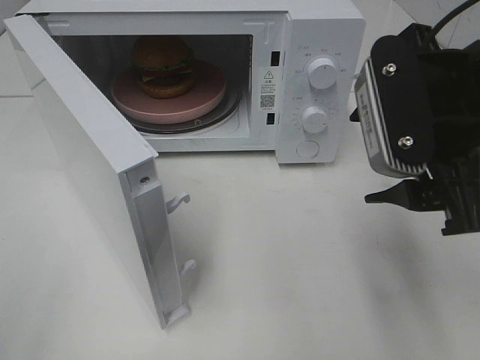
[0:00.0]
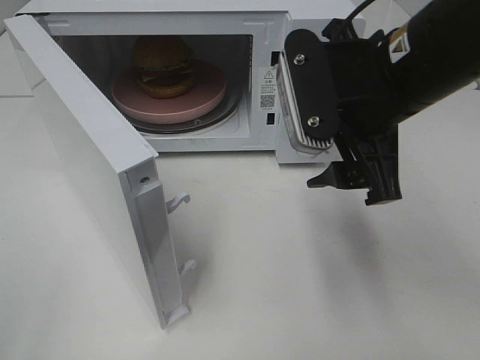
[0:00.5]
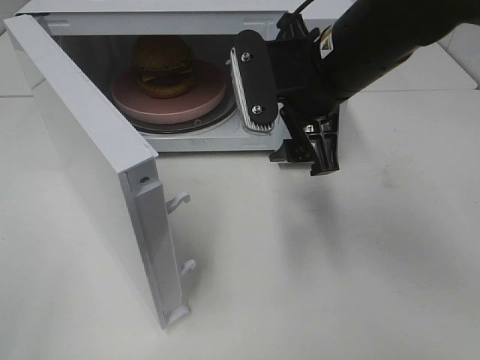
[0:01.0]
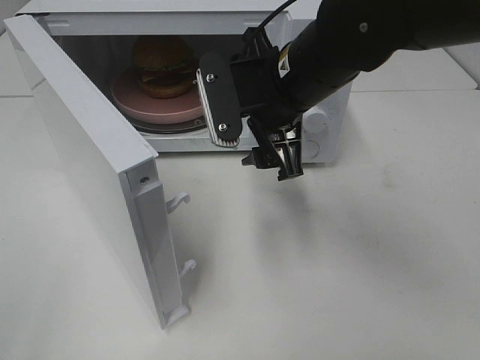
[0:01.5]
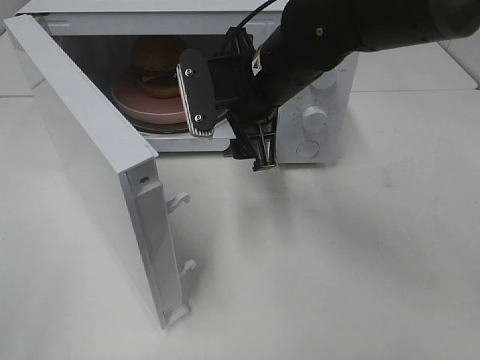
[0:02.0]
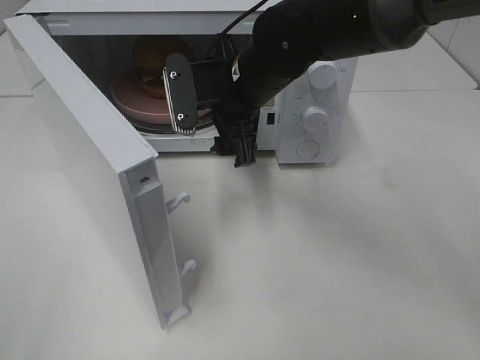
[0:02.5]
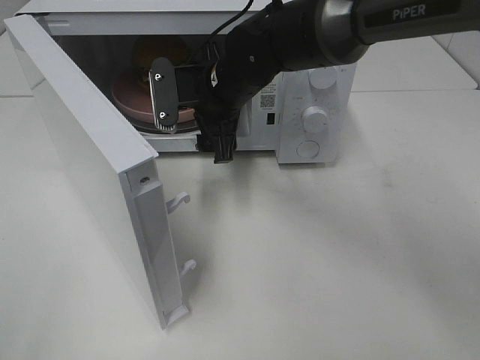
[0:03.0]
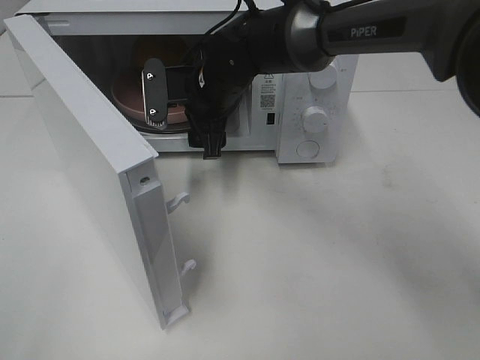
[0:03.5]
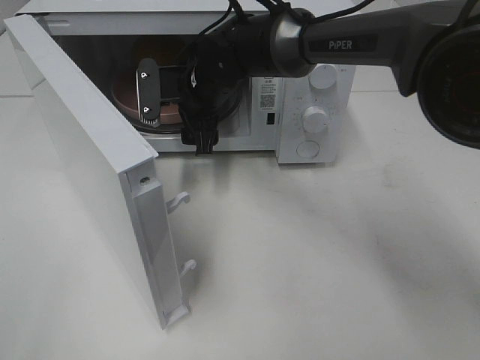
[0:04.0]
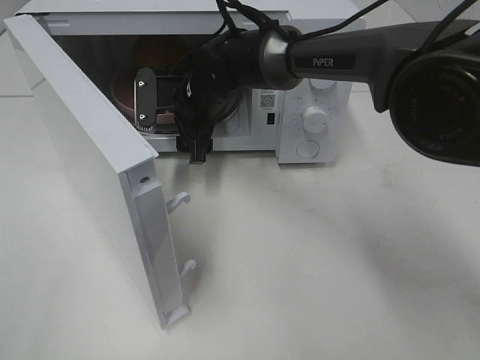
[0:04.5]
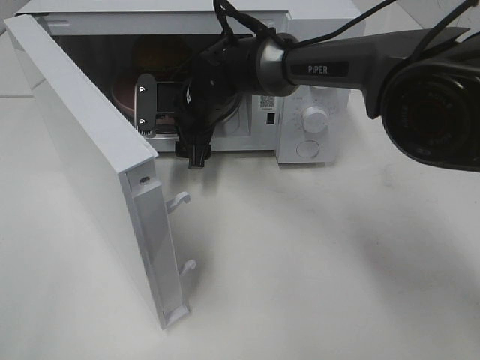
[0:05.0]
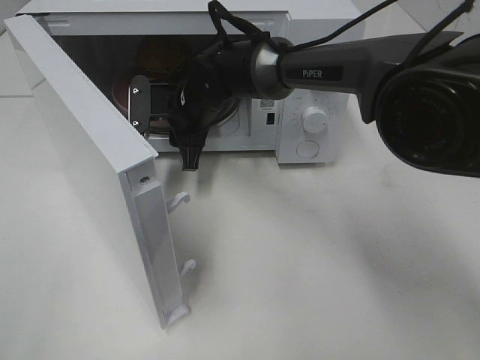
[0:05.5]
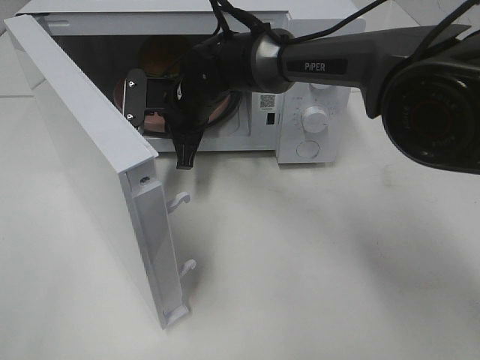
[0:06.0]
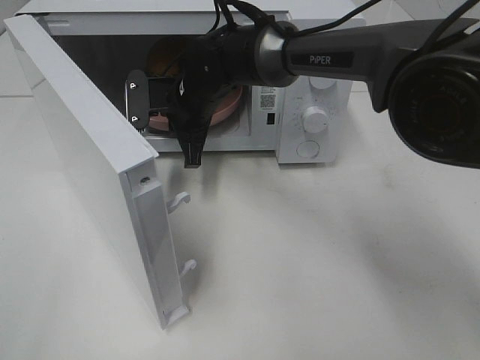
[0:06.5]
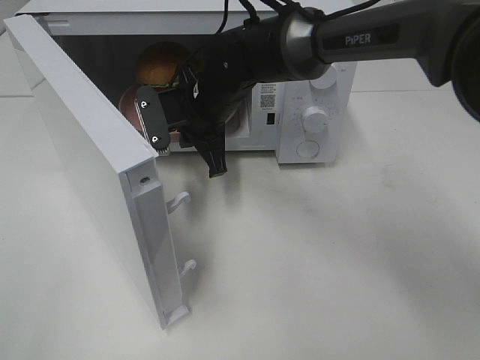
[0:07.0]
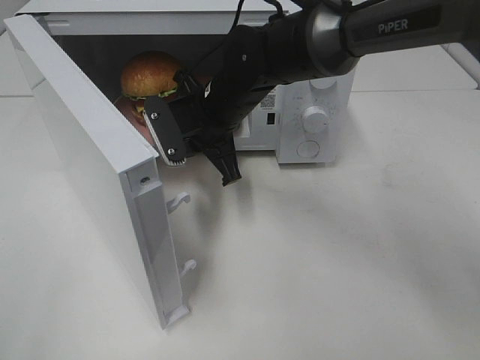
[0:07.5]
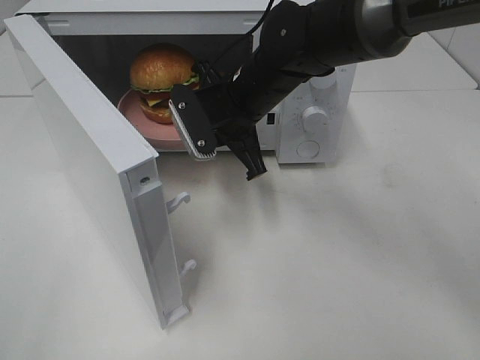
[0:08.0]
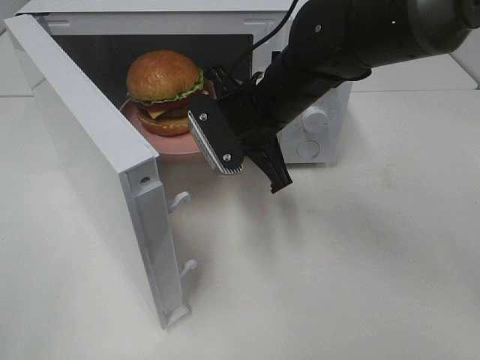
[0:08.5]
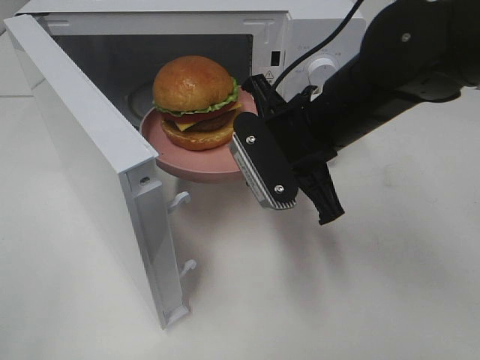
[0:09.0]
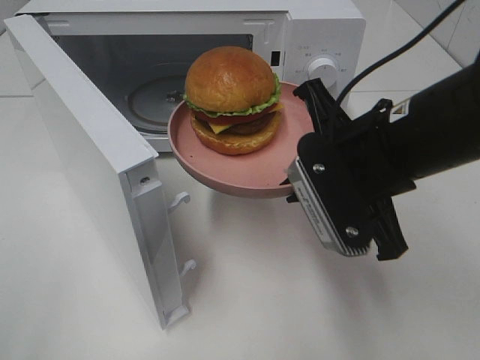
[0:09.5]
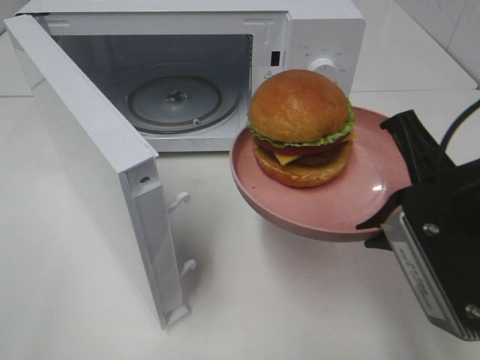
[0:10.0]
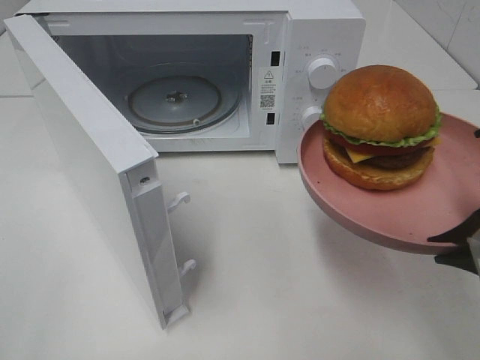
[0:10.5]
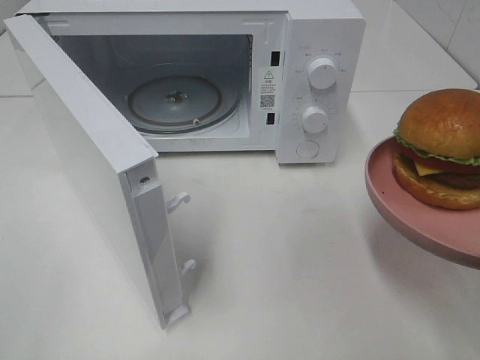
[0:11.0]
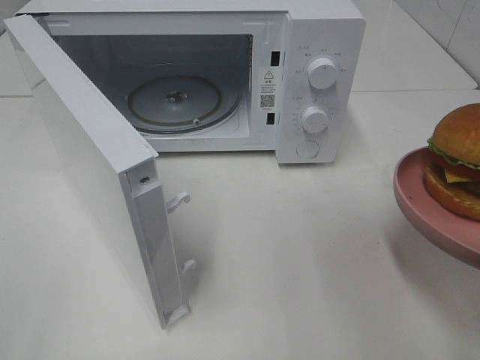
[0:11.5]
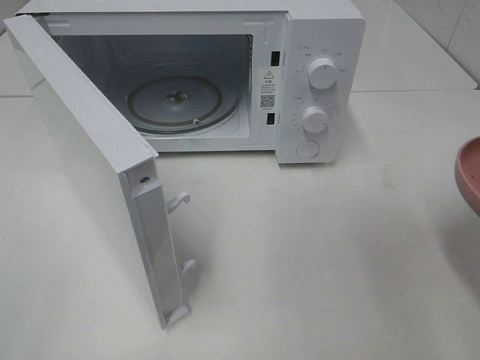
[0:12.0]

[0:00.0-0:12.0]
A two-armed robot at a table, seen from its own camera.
Task of the whole recording: Heat the burger.
Step, 0:00.0 to 0:06.0: Right hand: grab the plate with the hamburger.
0:00.0 to 0:02.0: The right gripper travels forward, to the left and downward by approximately 20 cm.
0:02.0 to 0:04.0: The right gripper is displaced forward, to the left and downward by roughly 15 cm.
0:04.0 to 0:06.0: The right gripper closes its fingers.
0:06.0 to 0:08.0: The right gripper heads to the right and backward, covering some 10 cm.
0:08.0 to 0:10.0: The right gripper is displaced backward and to the right by some 25 cm.
0:10.0 to 0:12.0: The right gripper moves to the right and backward, some 10 cm.

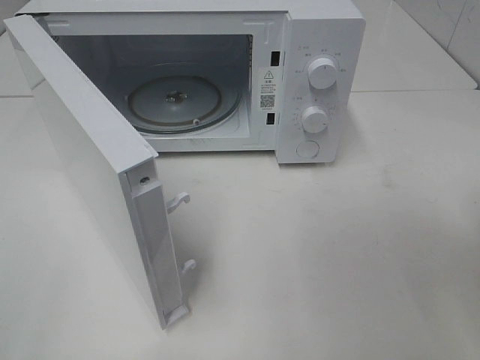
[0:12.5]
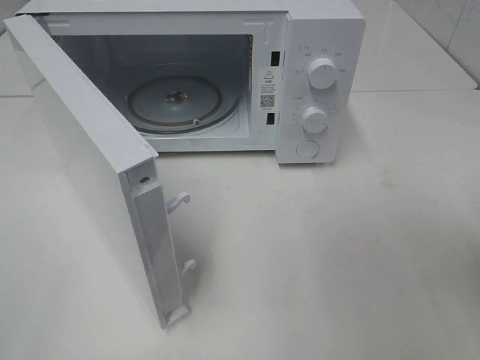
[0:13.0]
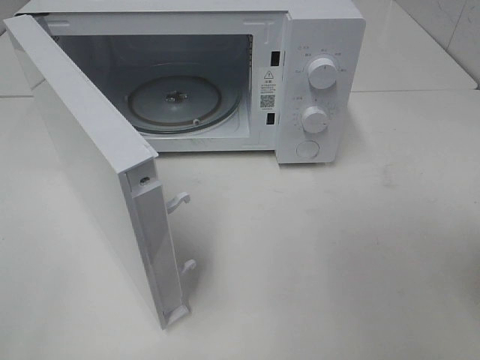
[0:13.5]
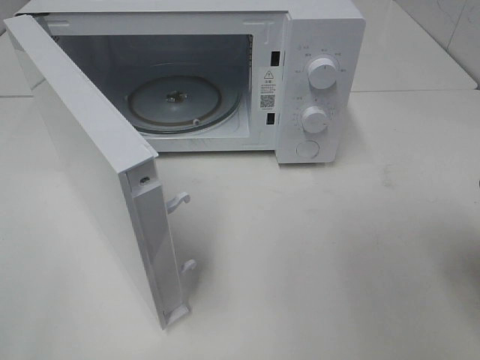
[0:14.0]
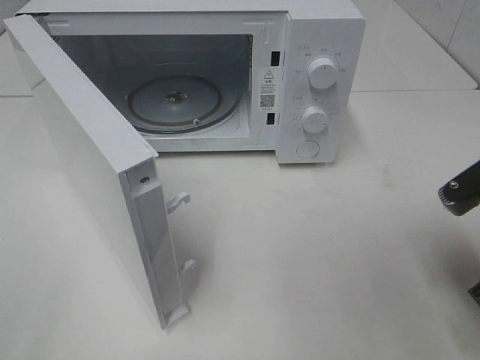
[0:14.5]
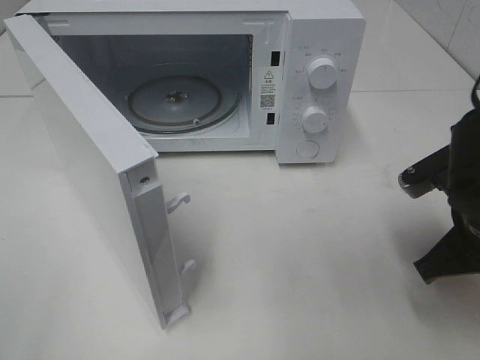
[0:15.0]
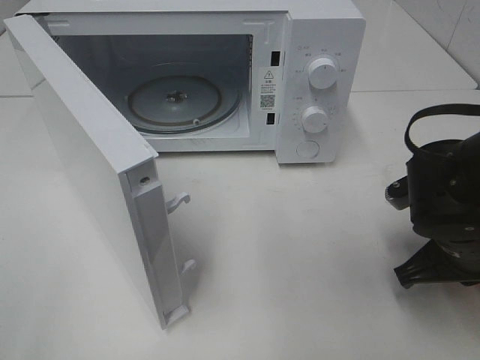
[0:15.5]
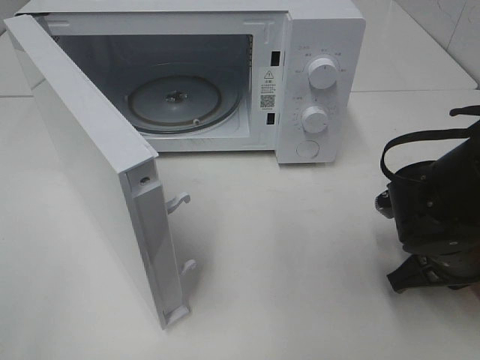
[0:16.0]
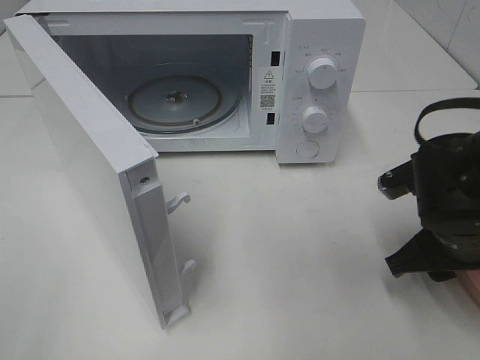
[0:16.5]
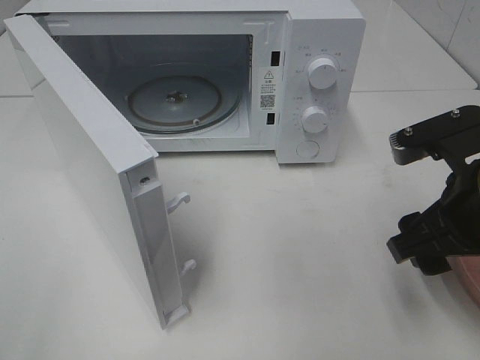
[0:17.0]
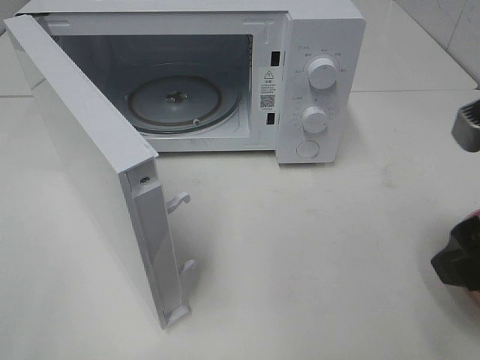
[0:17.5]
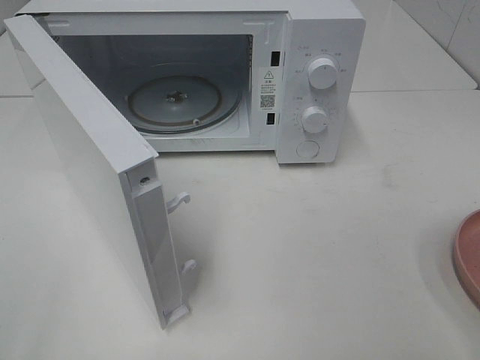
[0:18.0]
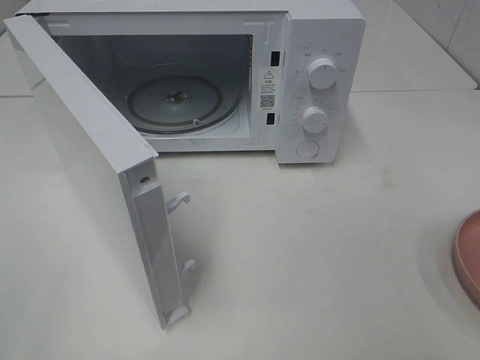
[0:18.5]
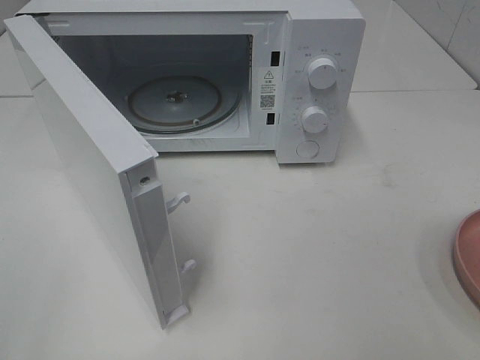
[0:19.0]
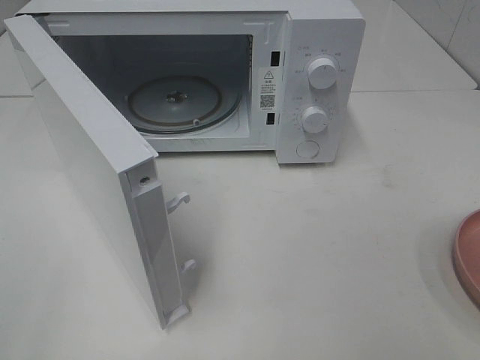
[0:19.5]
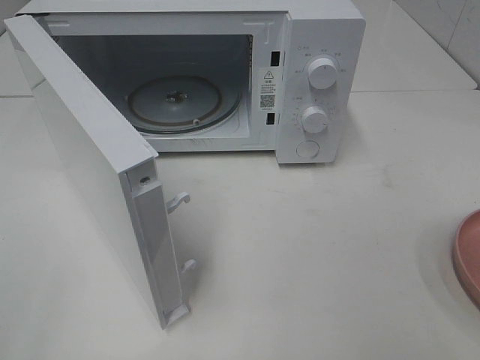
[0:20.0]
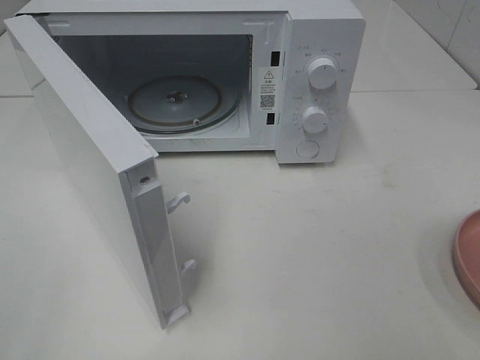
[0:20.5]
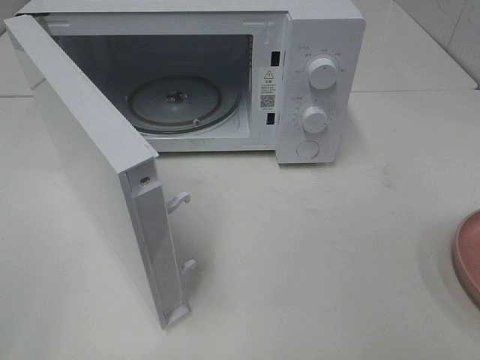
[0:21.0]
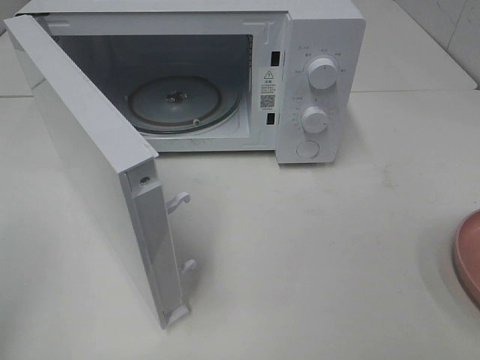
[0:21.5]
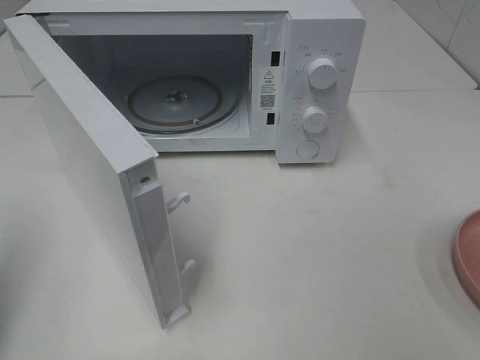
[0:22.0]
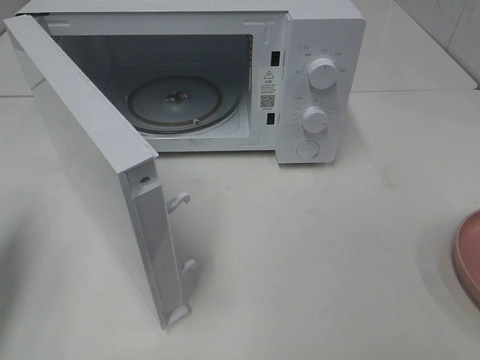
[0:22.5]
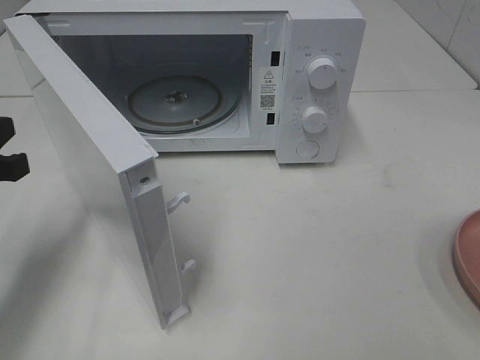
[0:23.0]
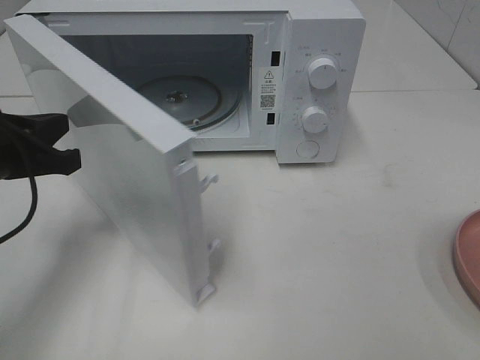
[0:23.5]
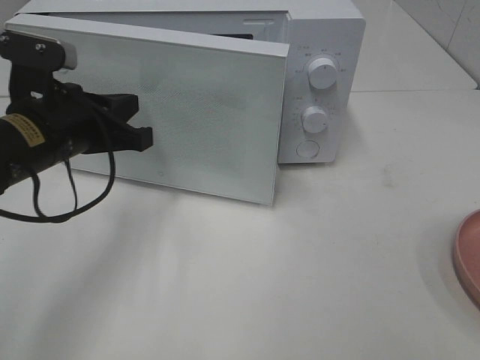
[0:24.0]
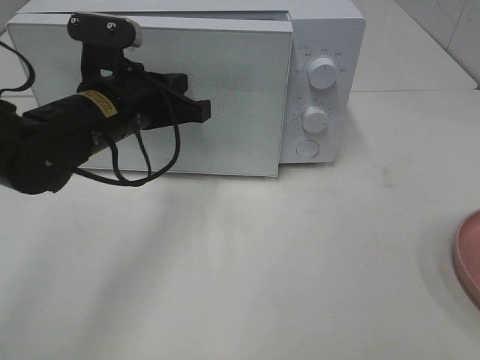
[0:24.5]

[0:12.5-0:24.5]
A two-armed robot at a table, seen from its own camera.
Task of the whole recording: Heat the burger.
Step, 0:12.5 to 0:16.0: Right hand: place the plate on the table.
0:12.5 to 0:14.5: The right gripper is displaced forward and downward by some 10 cm.
0:14.5 to 0:16.5: The right gripper is displaced downward and forward by roughly 10 cm, and opens.
0:16.5 to 0:18.5: The right gripper shifts approximately 25 cm backward and upward.
0:20.5 to 0:22.5: The left gripper shifts some 20 cm forward, and closes.
0:22.5 to 0:24.5: The left gripper shifts roughly 25 cm to the right and forward.

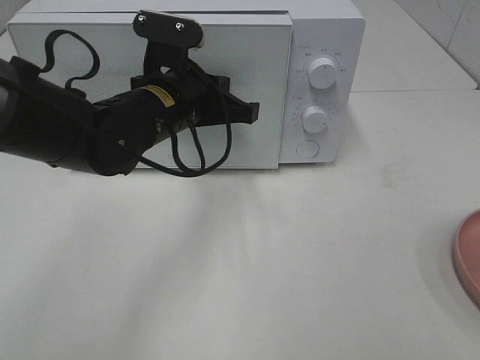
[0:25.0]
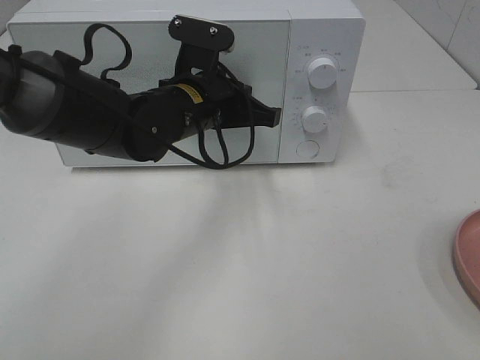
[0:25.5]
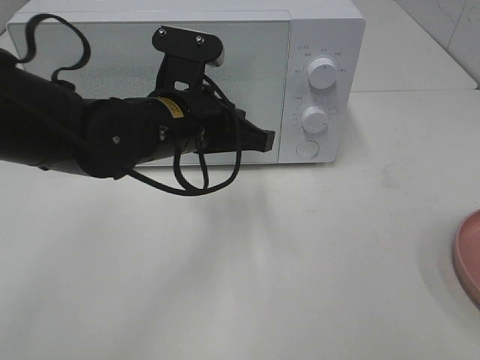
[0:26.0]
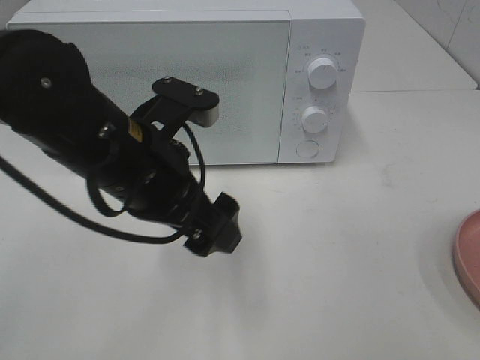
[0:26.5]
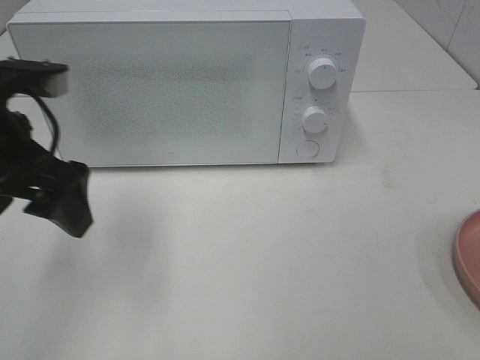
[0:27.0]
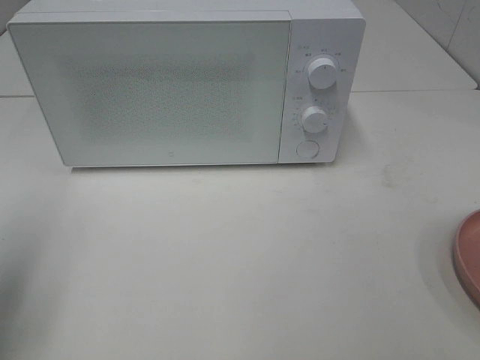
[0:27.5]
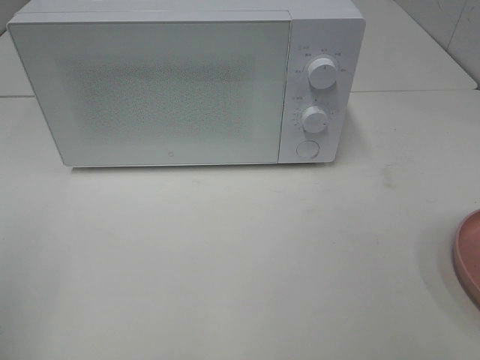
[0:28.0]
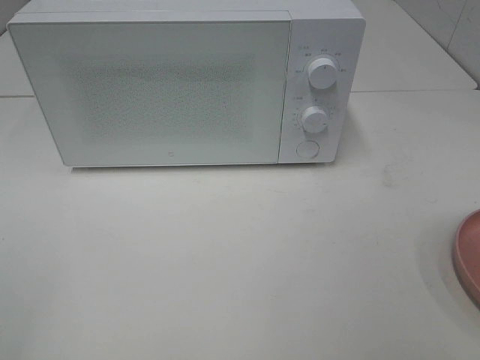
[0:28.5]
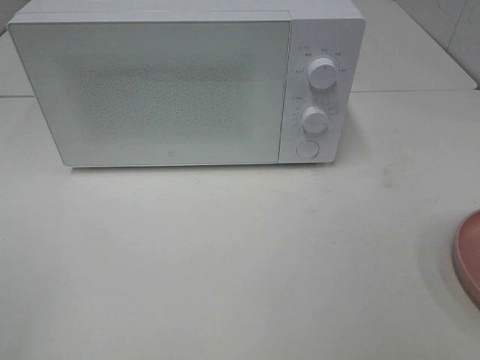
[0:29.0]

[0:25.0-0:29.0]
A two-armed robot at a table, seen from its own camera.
Task of the whole recording: Heat the burger.
0:25.0 to 0:27.0: The left gripper heads to the left, backward and upward, covering some 20 cm, and opens up.
0:27.0 to 0:29.0: The left gripper moves backward and to the left, some 25 cm.
